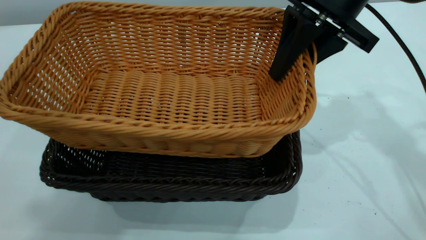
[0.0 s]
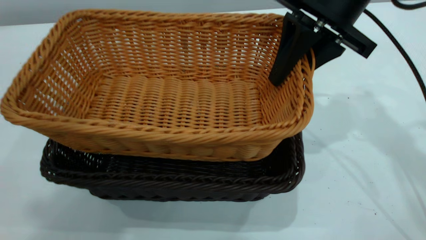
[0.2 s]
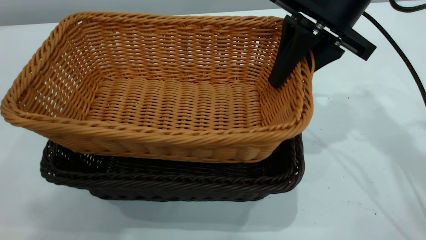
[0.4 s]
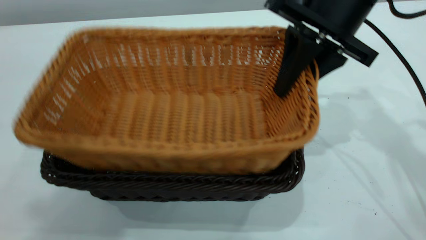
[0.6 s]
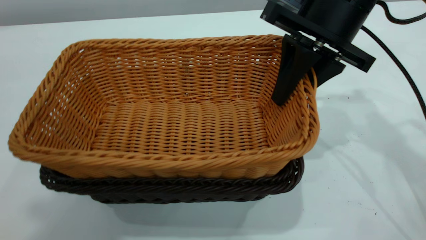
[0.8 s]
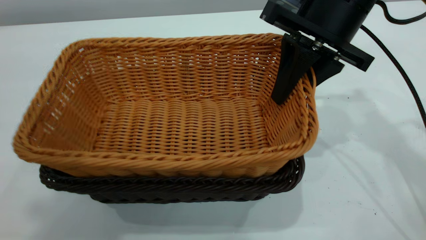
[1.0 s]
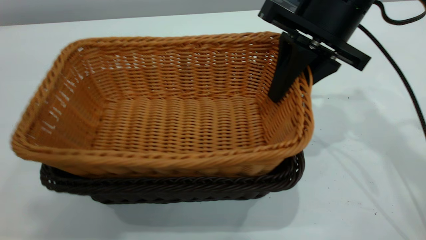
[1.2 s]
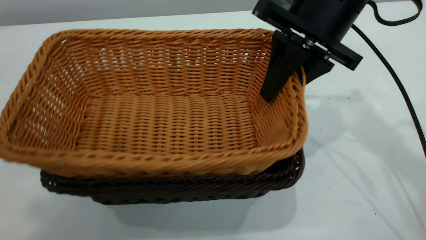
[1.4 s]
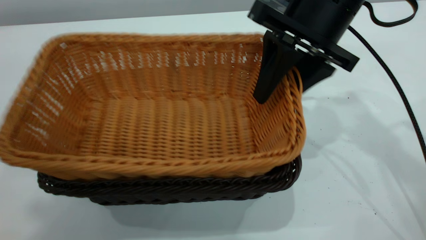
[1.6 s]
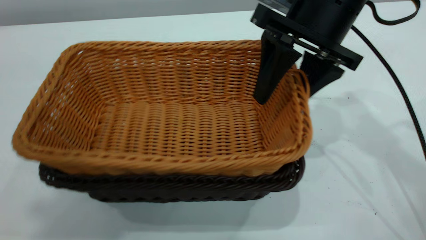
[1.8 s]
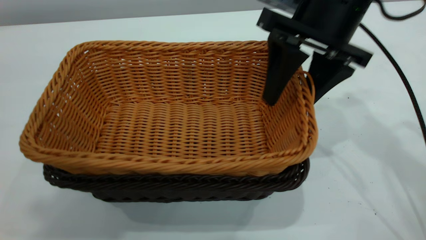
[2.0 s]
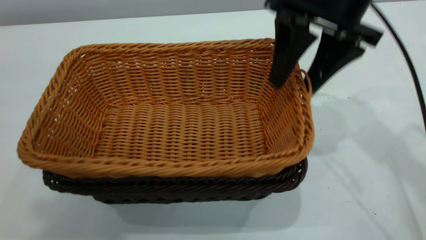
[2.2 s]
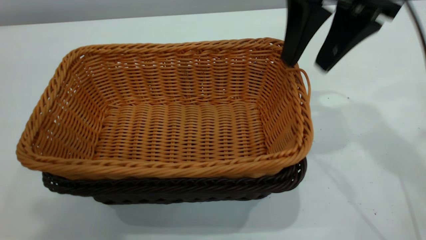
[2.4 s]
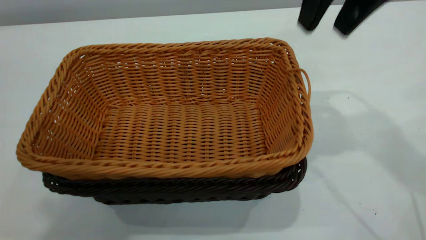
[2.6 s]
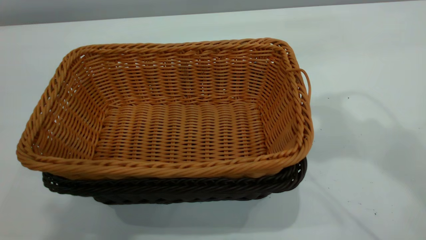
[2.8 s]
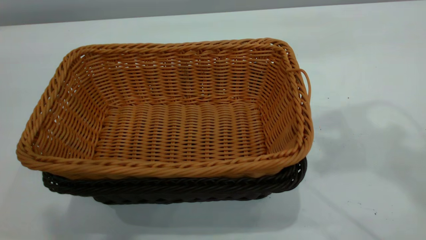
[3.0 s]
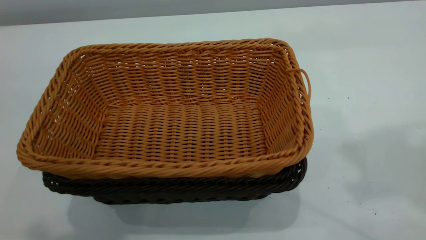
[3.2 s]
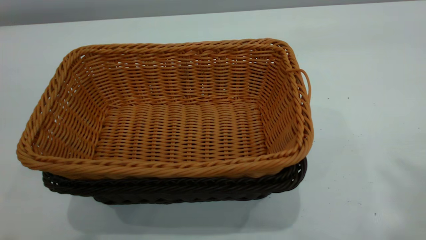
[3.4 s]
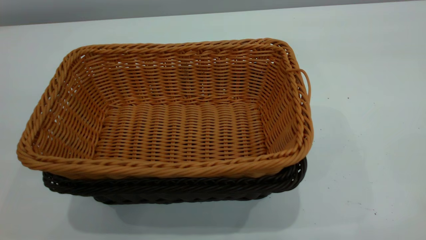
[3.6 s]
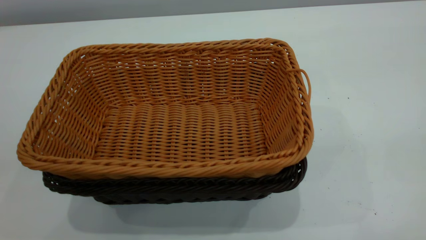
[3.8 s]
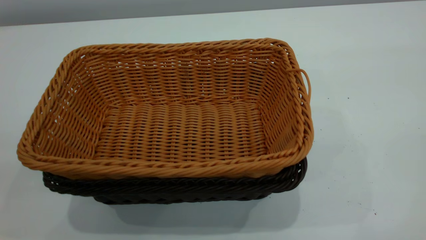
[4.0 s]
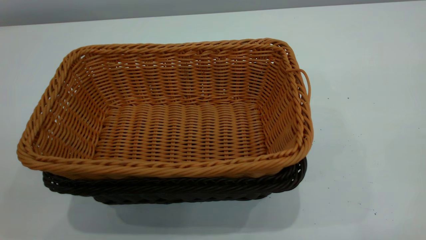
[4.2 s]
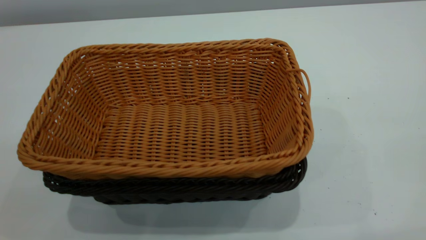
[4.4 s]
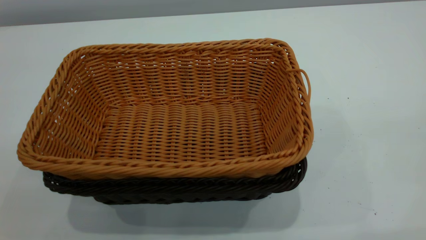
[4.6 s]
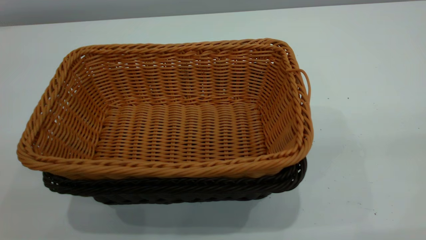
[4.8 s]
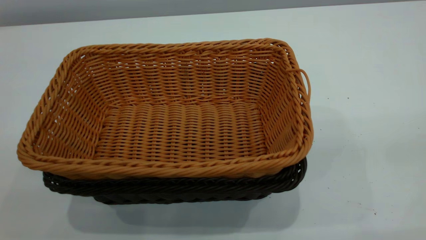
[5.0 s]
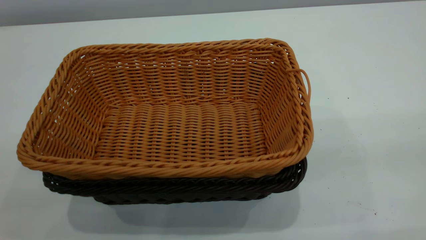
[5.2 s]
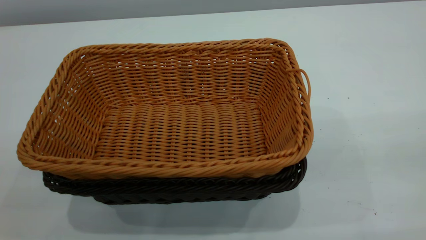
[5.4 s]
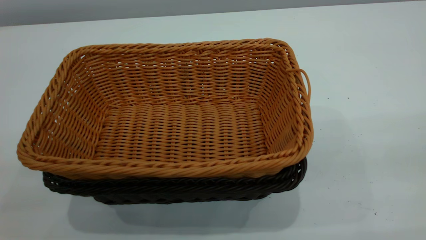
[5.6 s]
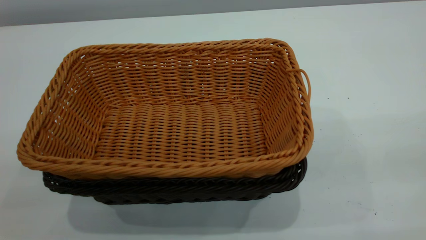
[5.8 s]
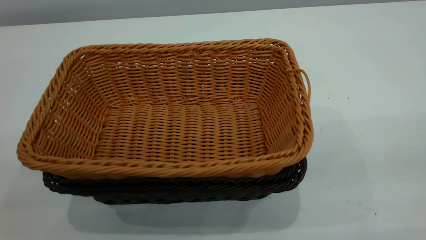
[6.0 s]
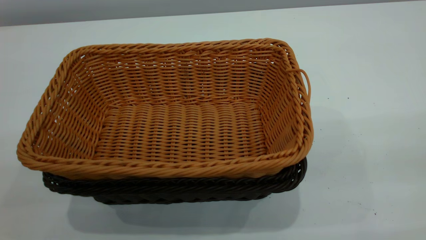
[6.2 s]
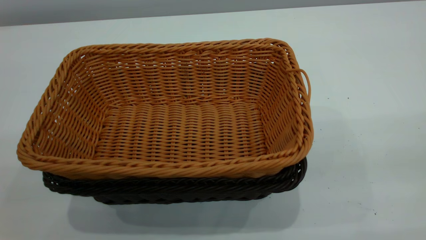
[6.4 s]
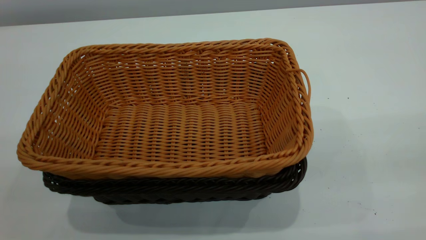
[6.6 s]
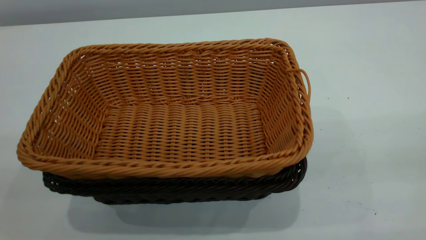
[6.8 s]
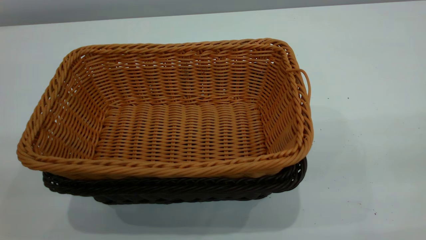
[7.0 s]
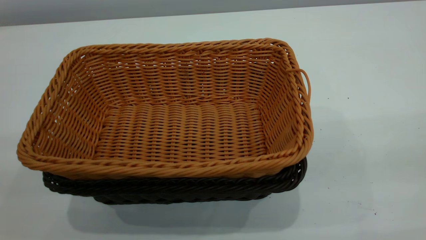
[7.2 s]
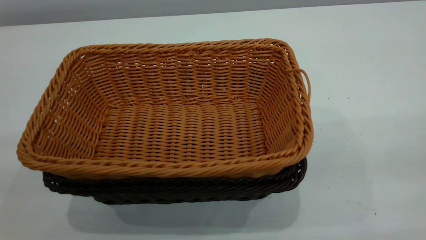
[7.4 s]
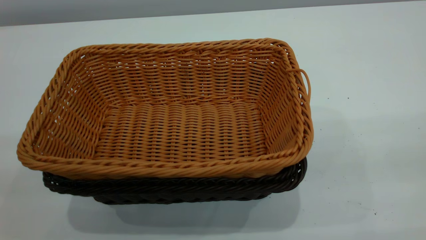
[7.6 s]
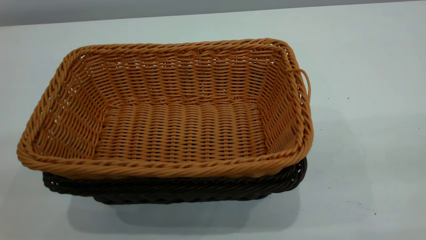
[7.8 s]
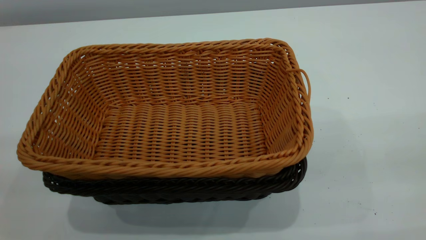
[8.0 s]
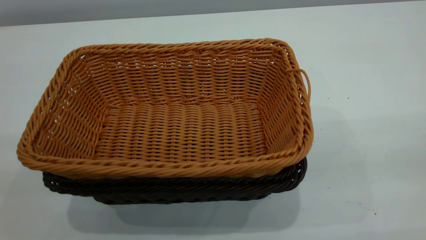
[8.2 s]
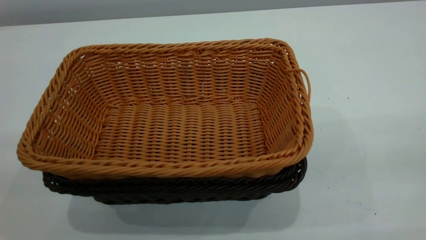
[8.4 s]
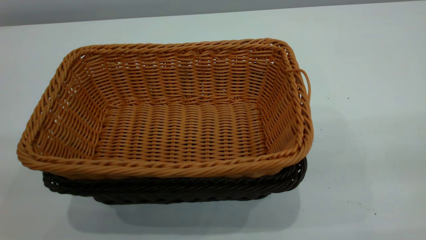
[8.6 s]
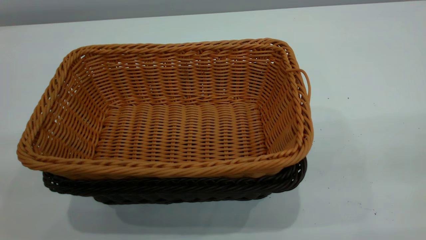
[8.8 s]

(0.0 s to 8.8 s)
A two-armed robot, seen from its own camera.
Task of the whole recording: the left gripper grasp the black basket and place it in the center of the table, the right gripper grasp the brown basket and place it inside the black one.
Step, 0.0 s - 2.4 s: Place the light basket on the dark basket.
1.4 s - 3.0 s: The right gripper heads upward, covering about 20 cm, and opens.
7.4 s - 8.8 s: Both grippers stay put.
